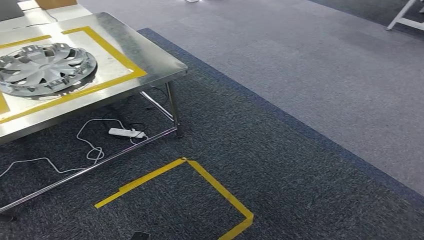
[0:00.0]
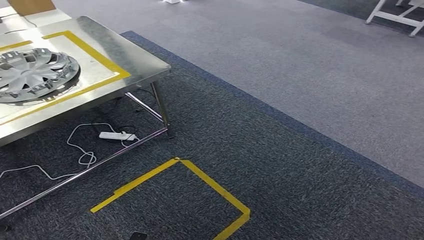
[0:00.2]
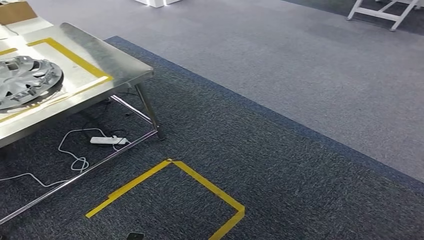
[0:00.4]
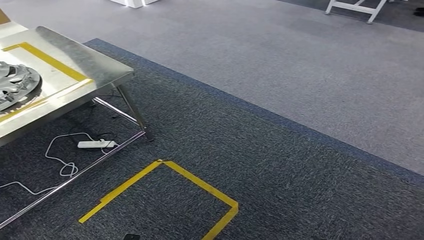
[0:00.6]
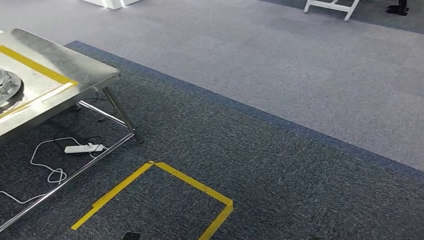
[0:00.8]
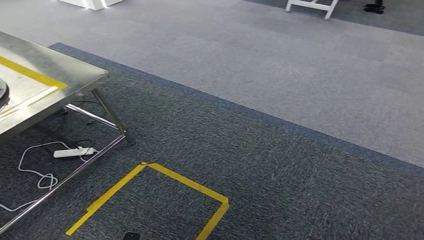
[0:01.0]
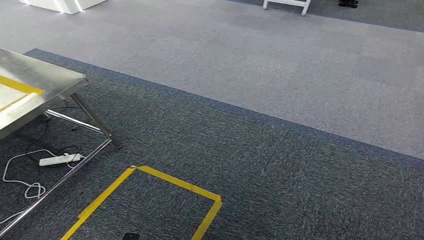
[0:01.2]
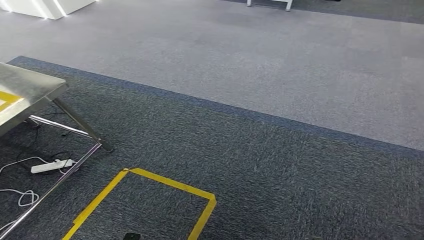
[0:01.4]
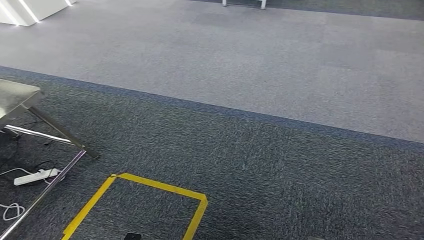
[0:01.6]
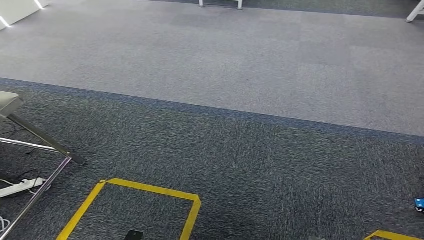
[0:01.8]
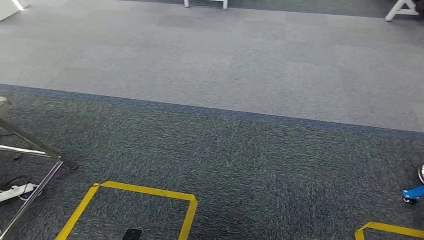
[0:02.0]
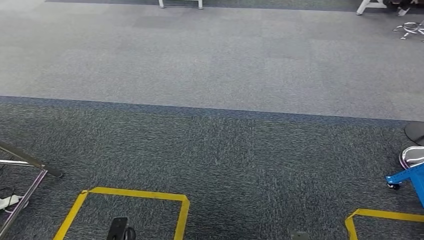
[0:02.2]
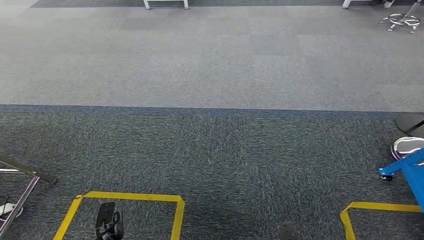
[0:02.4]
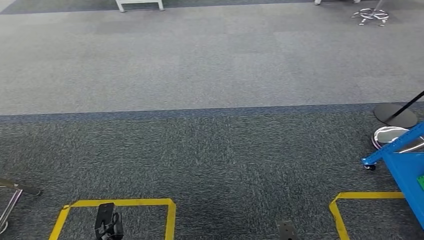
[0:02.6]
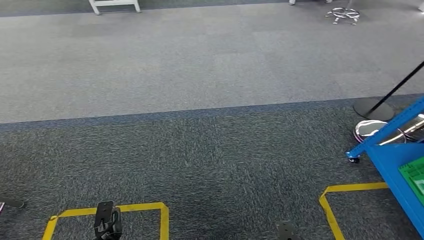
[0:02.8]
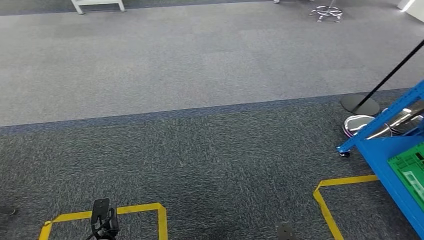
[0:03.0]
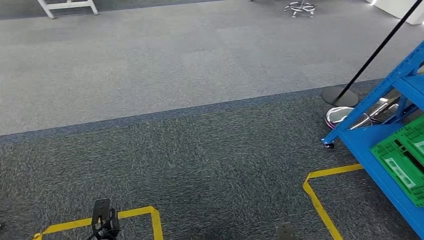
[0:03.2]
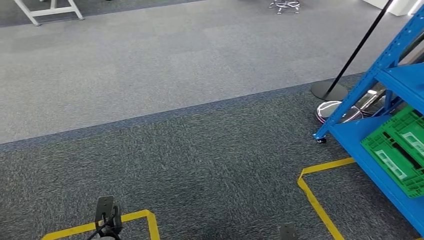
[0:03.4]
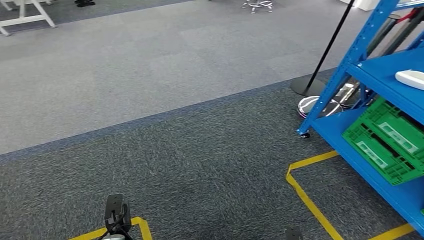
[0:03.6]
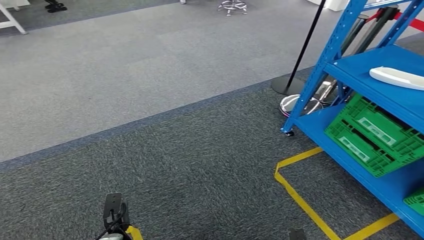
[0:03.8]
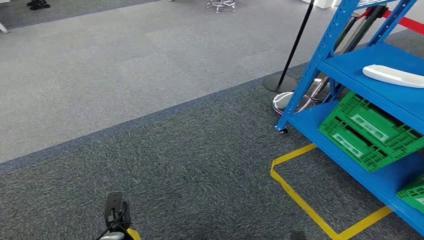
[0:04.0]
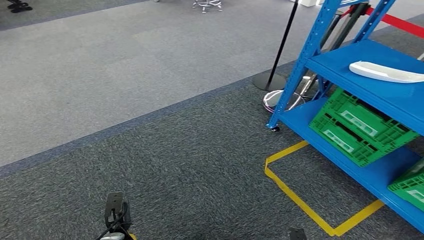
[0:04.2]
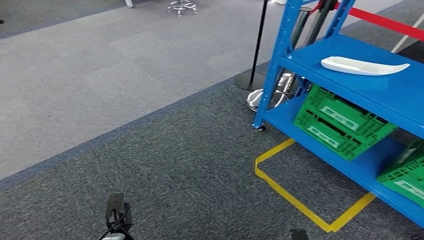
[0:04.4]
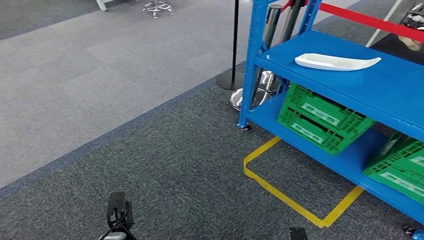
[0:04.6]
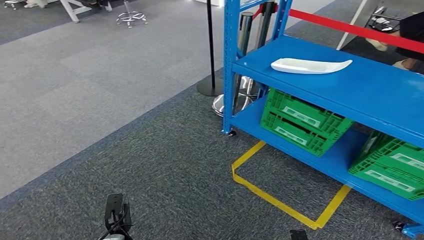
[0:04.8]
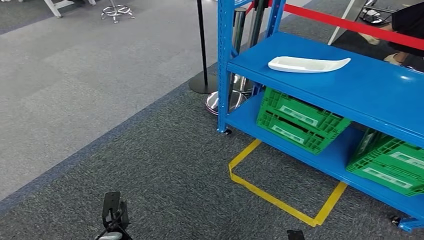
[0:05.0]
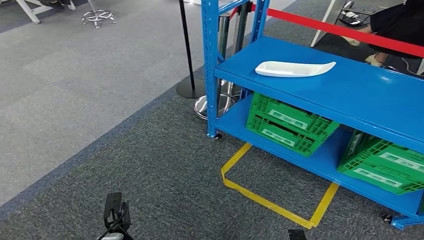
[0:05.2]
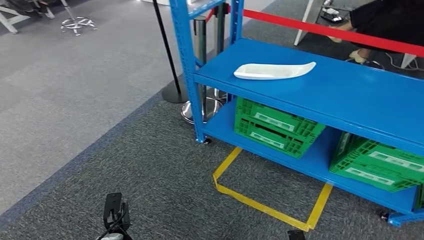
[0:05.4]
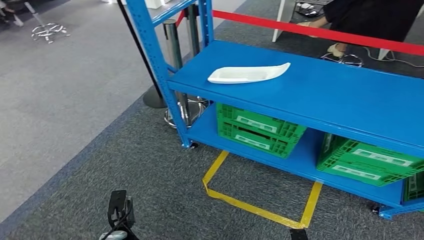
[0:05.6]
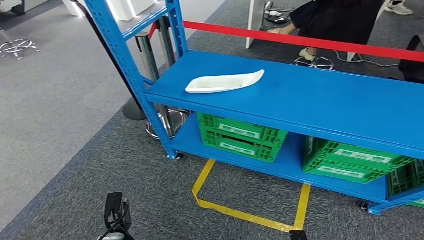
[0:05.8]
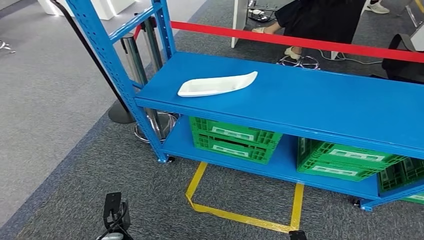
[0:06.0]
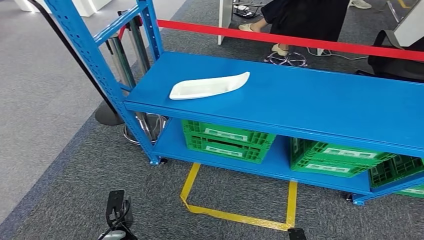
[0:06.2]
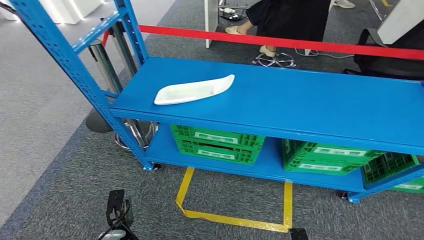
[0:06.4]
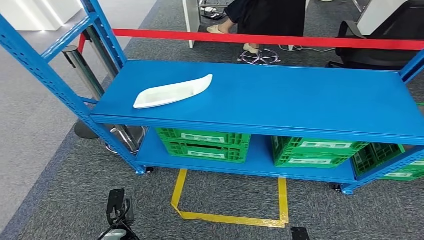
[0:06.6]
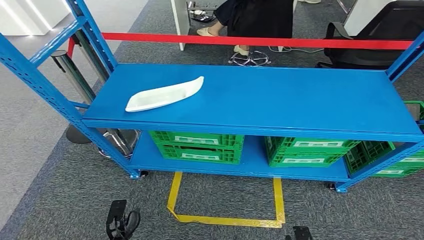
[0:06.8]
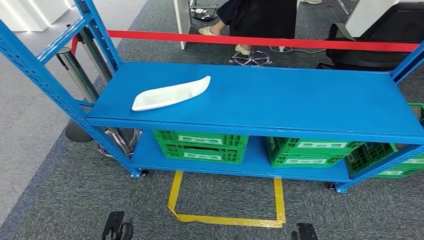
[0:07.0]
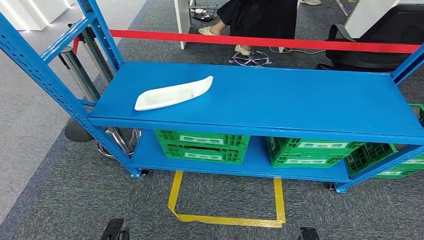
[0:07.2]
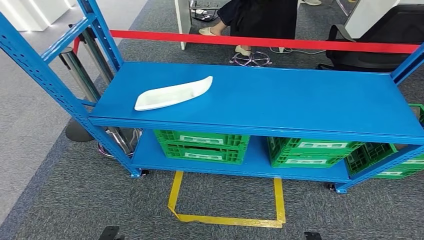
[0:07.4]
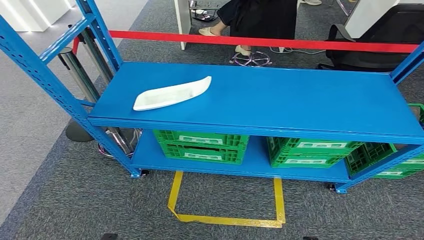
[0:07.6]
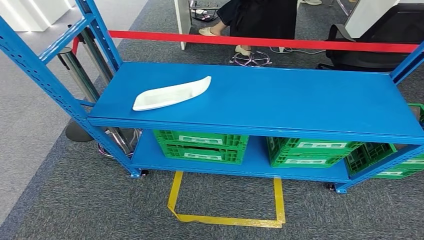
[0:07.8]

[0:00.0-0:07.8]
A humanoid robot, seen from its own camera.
Step, 0:00.0 to 0:07.8: Move to the initial position at the workbench.

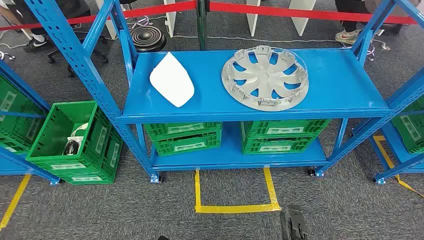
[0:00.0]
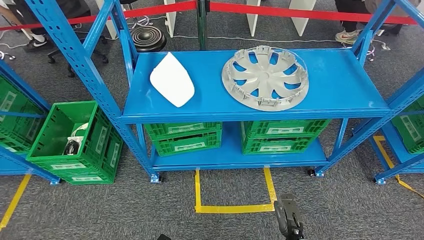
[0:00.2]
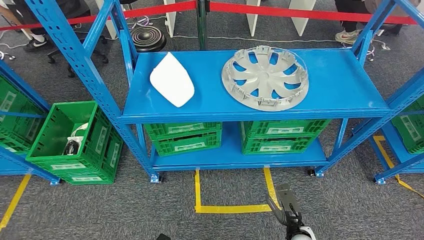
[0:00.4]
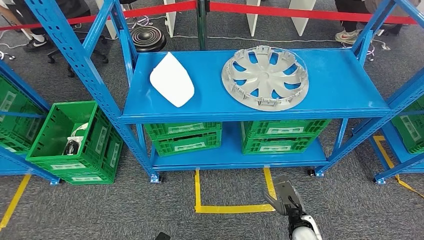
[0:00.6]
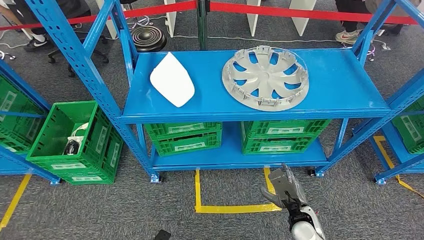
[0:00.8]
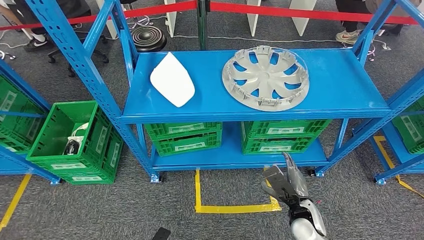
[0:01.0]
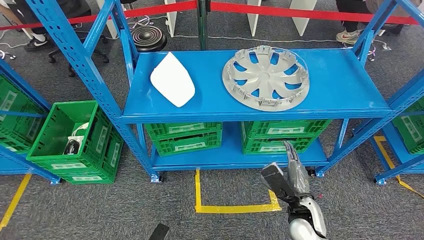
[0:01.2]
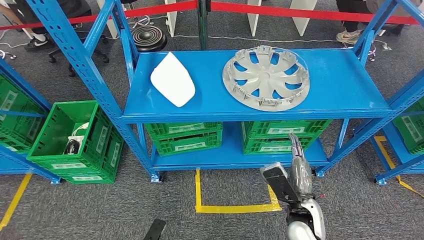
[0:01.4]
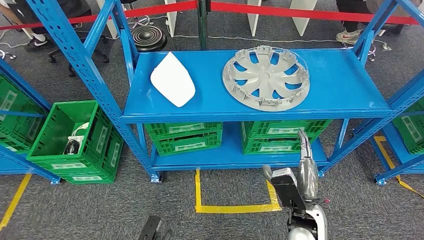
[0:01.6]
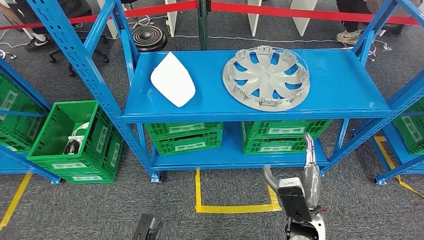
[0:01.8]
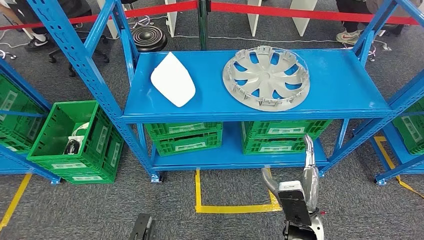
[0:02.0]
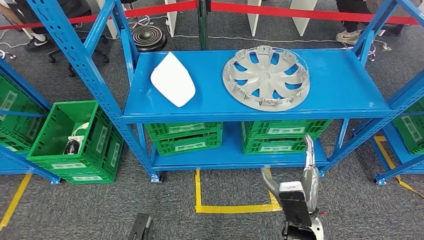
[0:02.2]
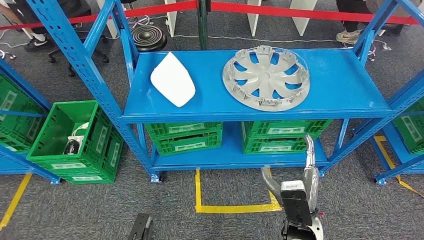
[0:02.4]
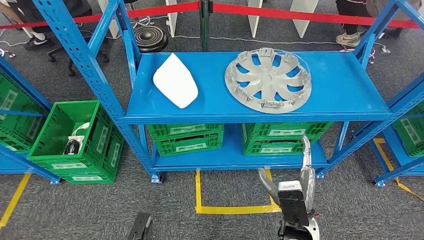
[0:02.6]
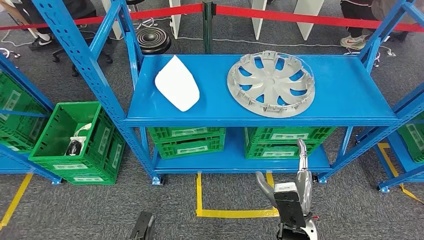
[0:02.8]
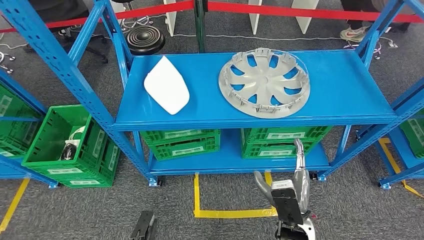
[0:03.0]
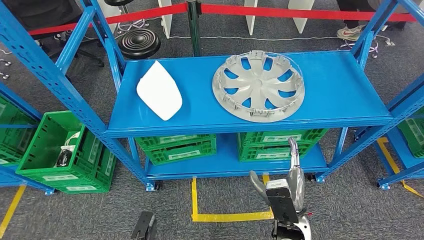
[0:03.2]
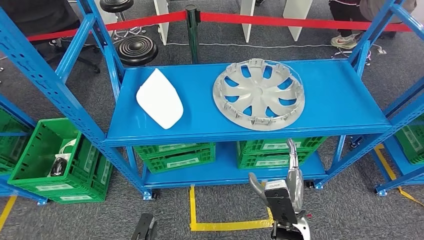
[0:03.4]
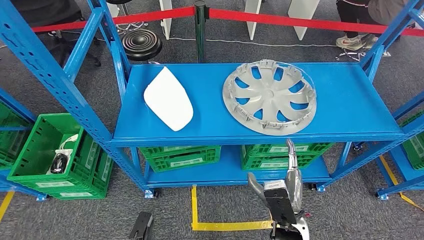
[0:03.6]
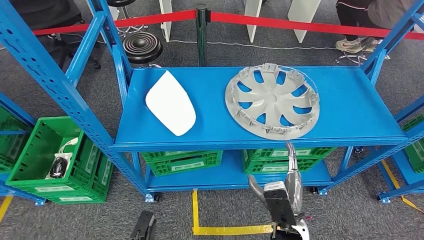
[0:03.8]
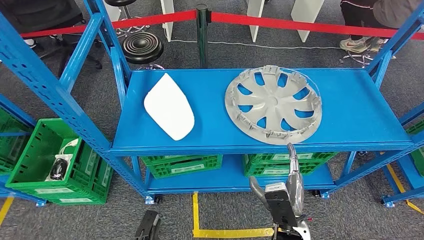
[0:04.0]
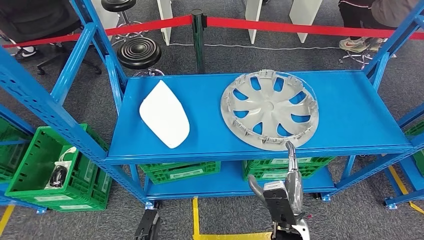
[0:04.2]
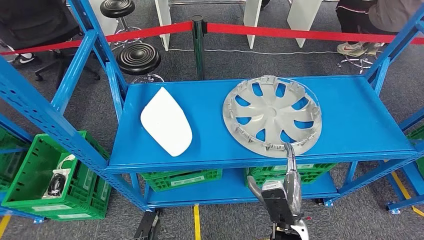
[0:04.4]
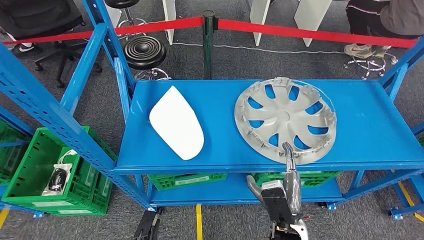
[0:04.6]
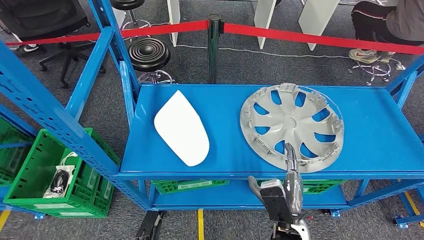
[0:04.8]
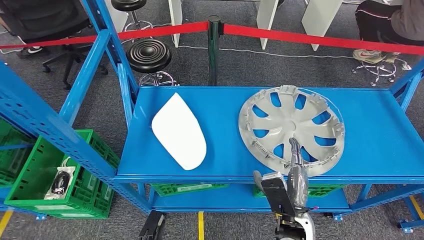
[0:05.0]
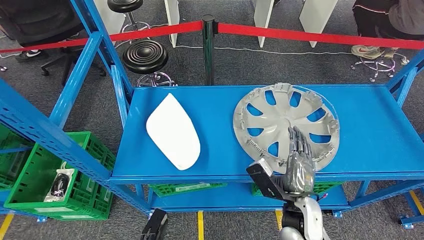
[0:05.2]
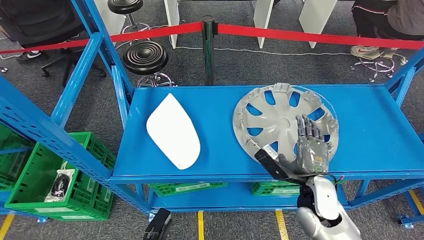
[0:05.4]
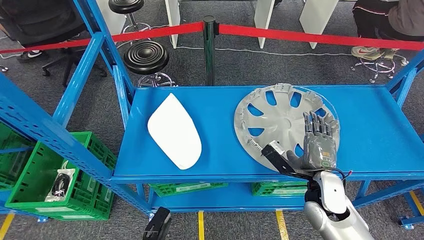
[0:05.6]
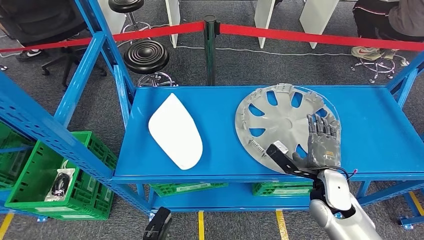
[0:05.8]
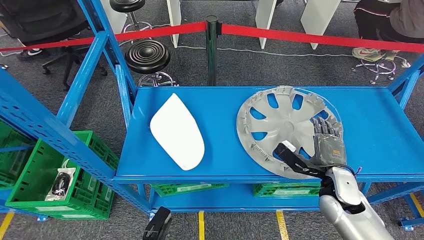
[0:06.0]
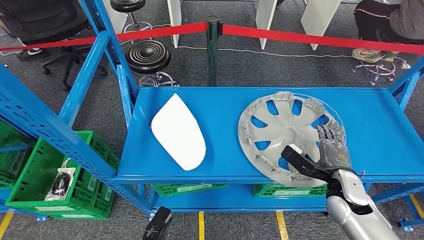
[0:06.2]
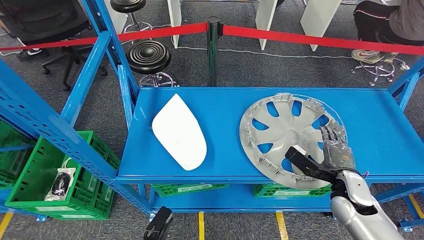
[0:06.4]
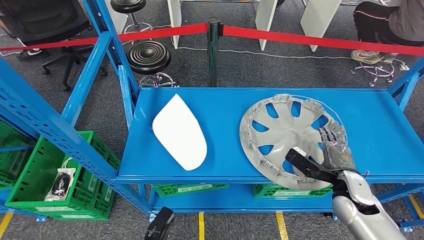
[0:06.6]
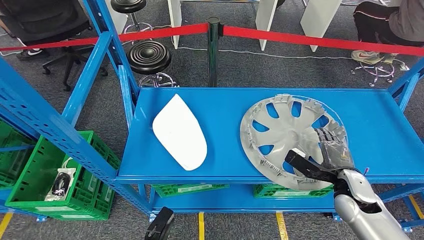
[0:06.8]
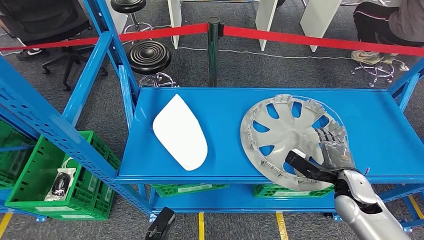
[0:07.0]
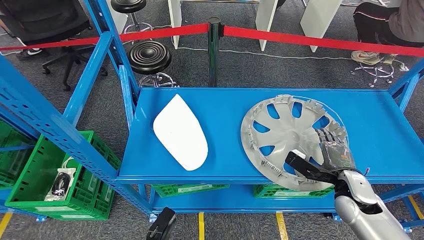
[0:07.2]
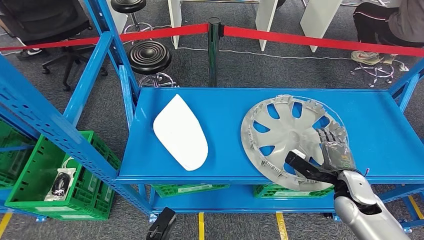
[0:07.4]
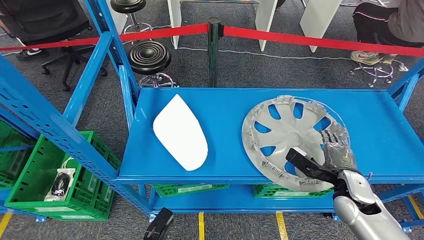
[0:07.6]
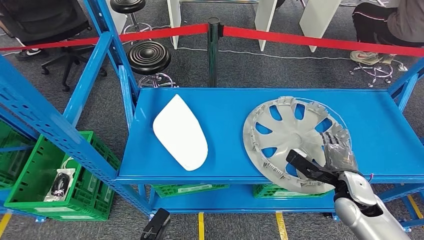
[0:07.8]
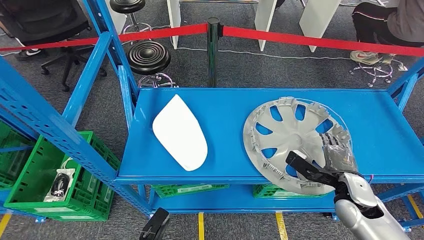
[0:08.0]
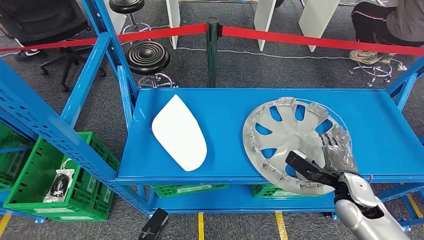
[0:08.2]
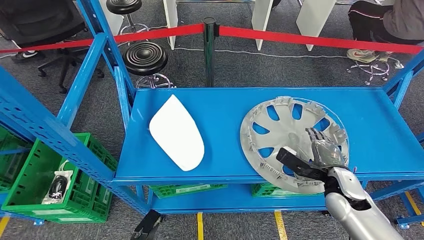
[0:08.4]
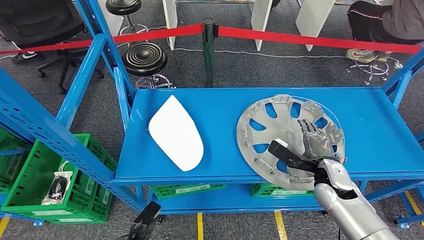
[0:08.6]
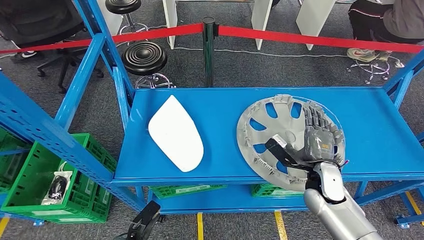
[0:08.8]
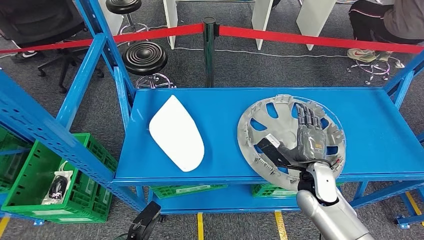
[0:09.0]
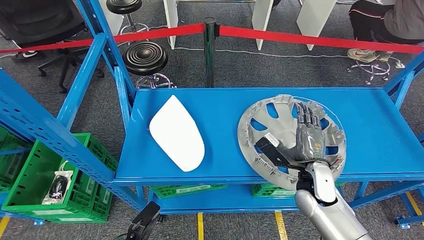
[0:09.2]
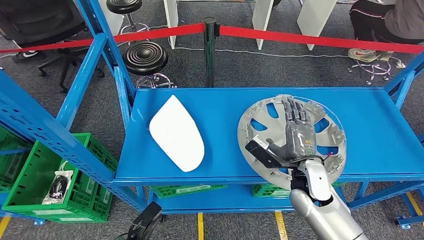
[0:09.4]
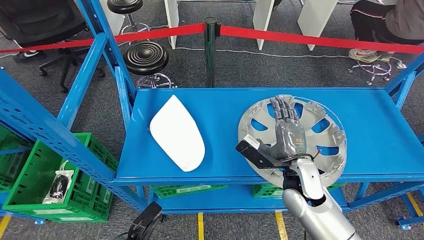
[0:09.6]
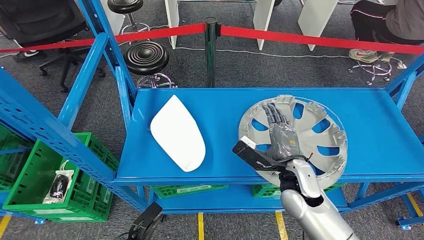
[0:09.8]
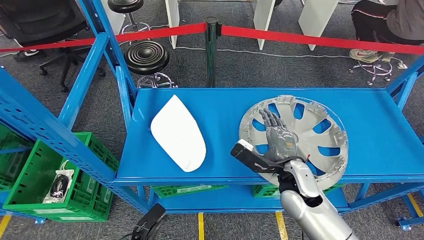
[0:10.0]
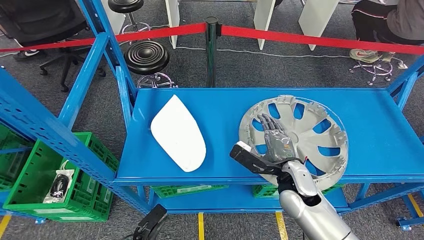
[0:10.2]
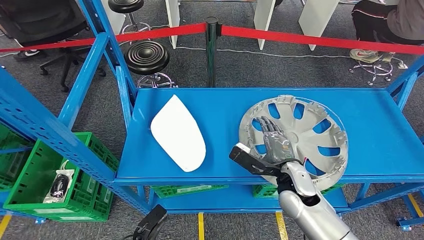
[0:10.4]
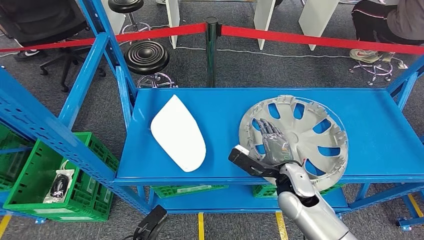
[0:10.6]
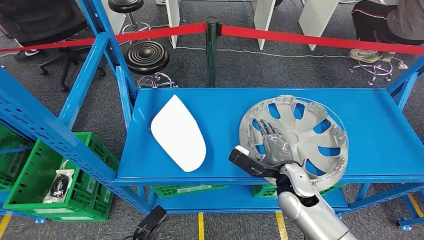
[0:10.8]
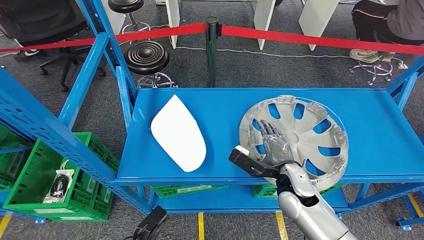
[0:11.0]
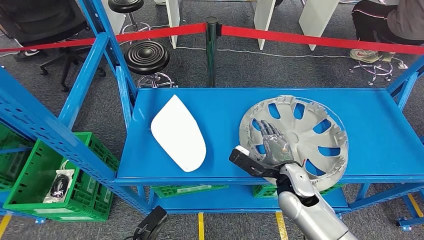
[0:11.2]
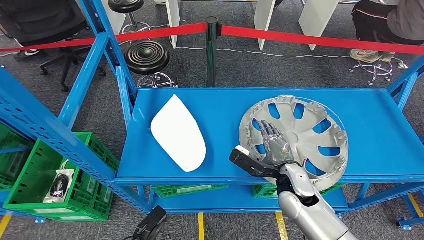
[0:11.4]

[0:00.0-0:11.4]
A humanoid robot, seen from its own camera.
0:10.0 to 0:11.4: The hands make only small movements.
